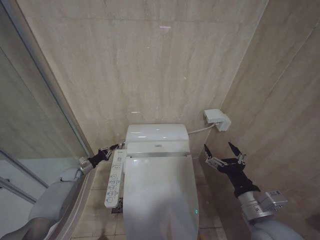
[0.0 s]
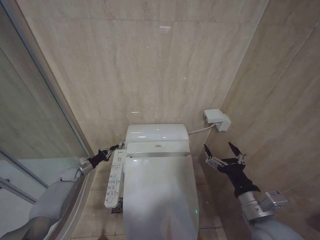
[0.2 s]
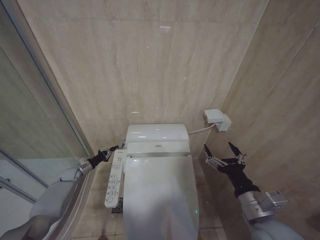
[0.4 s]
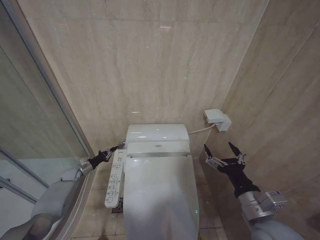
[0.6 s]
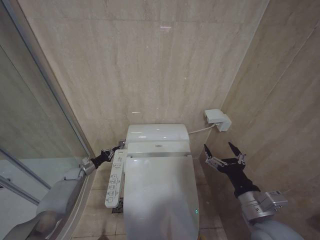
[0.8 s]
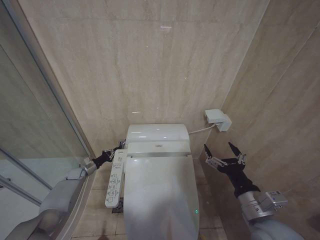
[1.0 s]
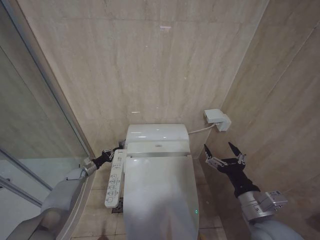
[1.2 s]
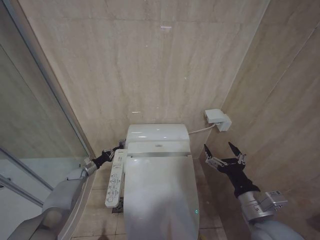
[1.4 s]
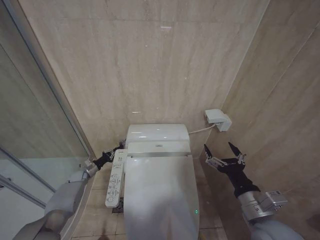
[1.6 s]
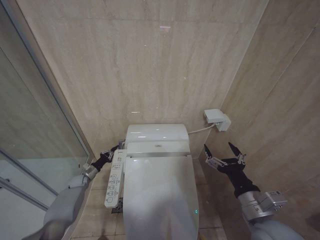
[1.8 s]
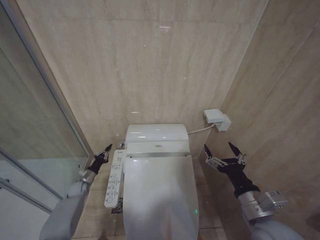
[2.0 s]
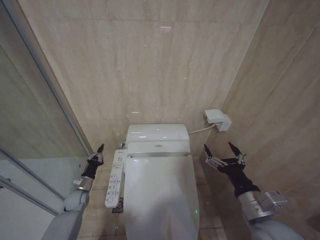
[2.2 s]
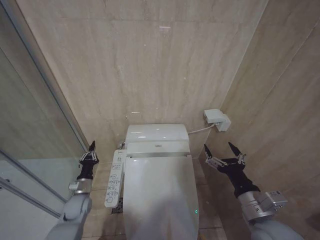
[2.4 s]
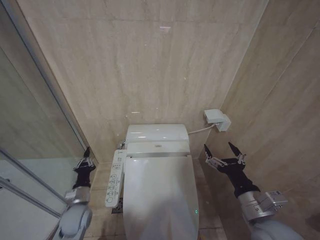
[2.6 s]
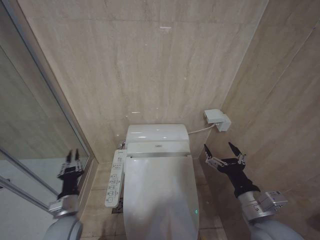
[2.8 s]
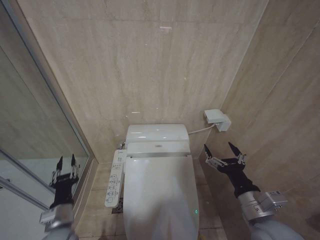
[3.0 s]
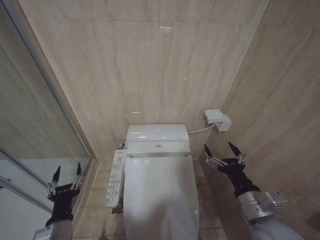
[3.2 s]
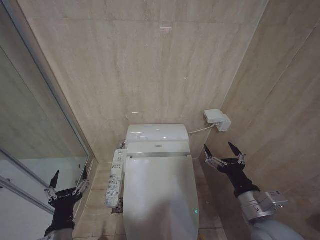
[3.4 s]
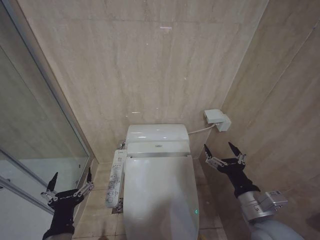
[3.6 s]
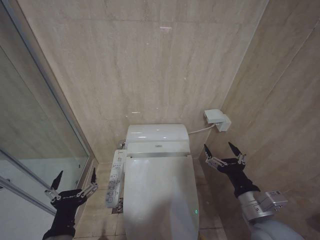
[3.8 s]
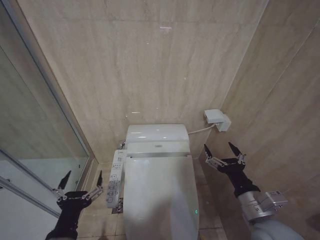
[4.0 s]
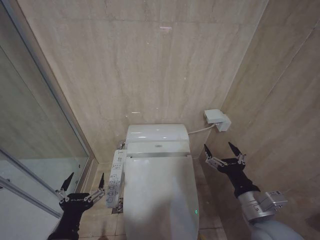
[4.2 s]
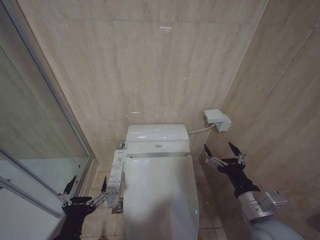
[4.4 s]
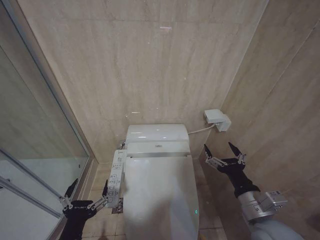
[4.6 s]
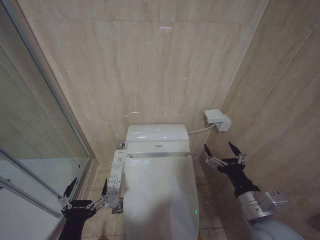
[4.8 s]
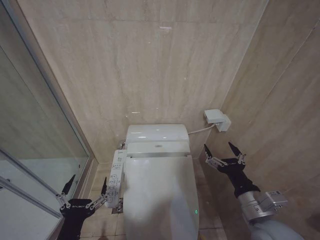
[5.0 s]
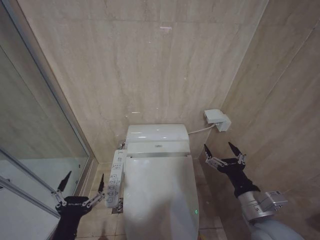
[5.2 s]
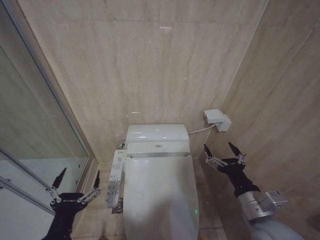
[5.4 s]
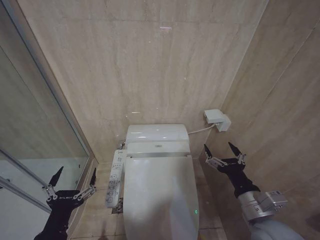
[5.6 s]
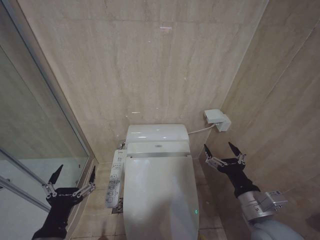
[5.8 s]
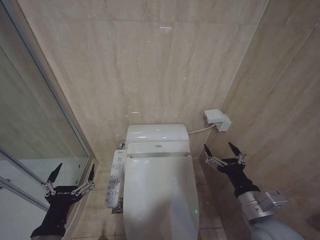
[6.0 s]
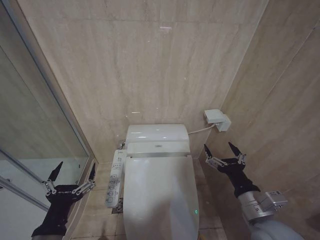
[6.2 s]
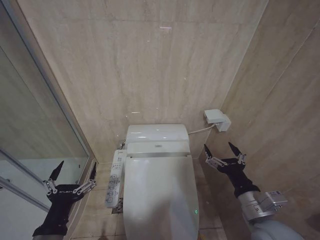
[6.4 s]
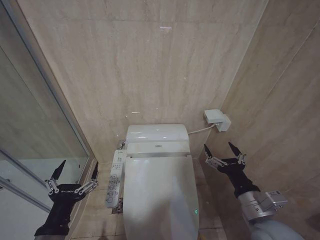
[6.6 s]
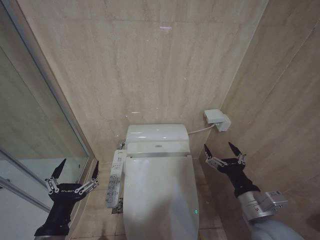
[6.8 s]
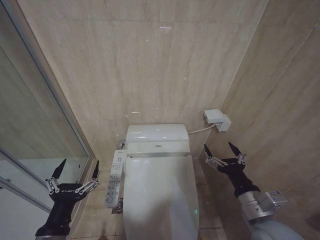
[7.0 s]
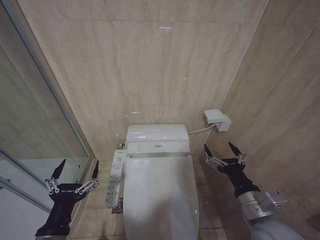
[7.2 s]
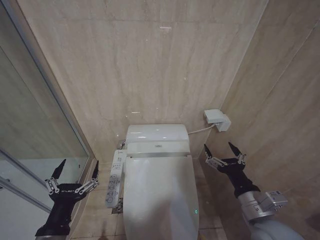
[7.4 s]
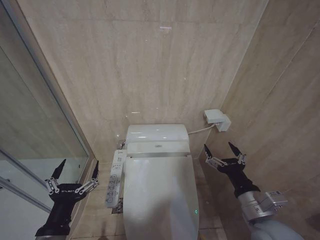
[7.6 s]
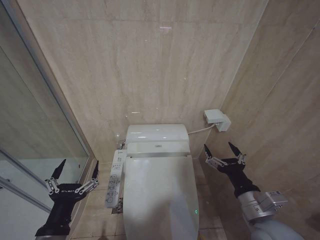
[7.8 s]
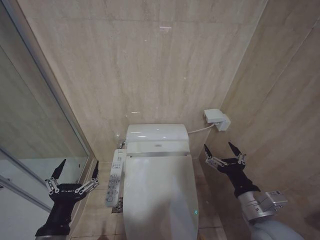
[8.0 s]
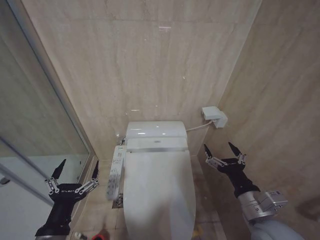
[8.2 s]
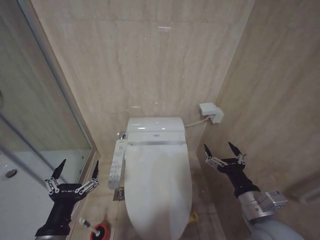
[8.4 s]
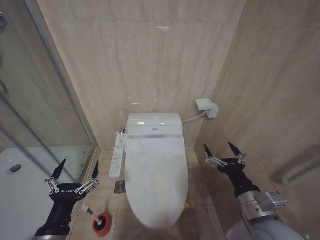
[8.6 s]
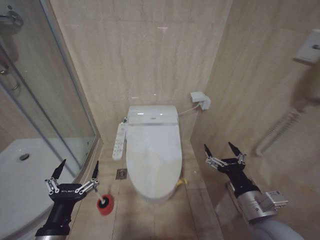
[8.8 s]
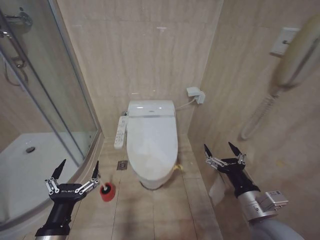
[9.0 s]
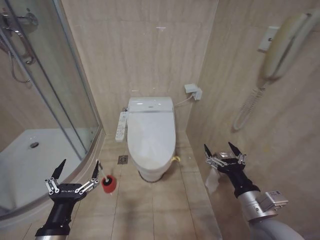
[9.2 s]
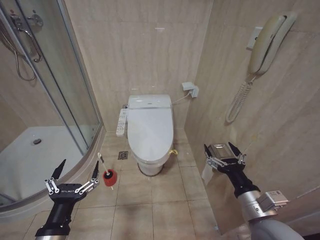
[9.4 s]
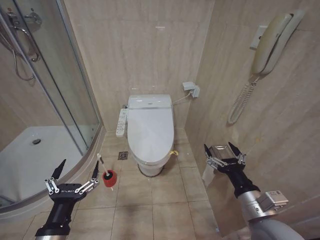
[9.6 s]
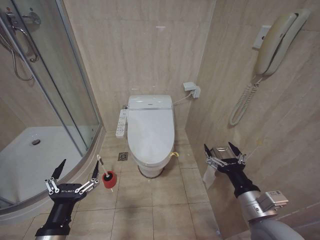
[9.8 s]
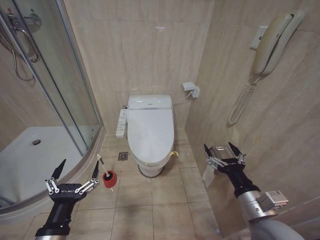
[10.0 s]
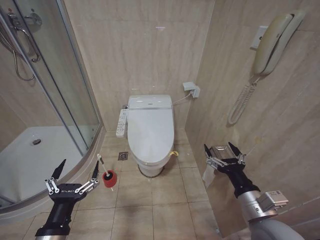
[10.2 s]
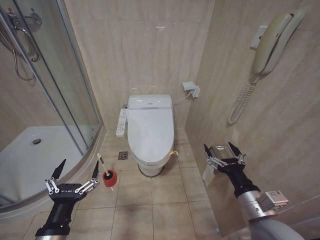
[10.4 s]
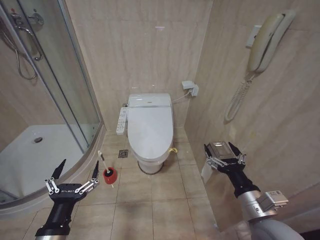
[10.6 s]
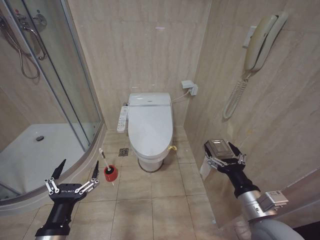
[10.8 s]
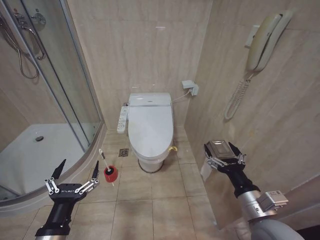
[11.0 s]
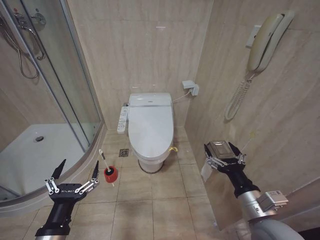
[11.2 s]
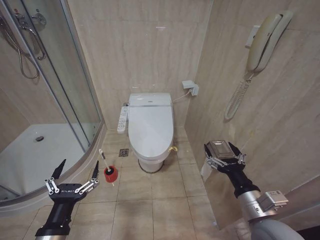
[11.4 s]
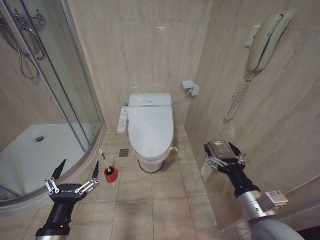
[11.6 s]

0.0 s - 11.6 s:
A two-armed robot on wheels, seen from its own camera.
Task of the whole recording: Open the toilet lid, clean the toilet bowl with a toilet brush, close the toilet lid, and flush.
0.0 s - 1.4 s: The grippers make only small movements.
1.4 s - 2.8 s: The left gripper moves backward and to the right, approximately 30 cm.
2.8 s - 4.4 s: The left gripper is displaced backward, upward and to the right by roughly 20 cm, and opens its fingers.
4.4 s - 7.2 s: There are only small adjustments of the grippers.
10.2 s - 11.6 s: Both grippers stay about where they are.

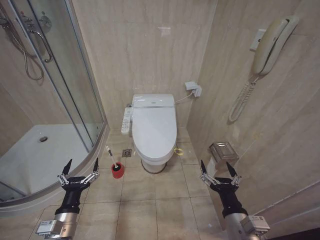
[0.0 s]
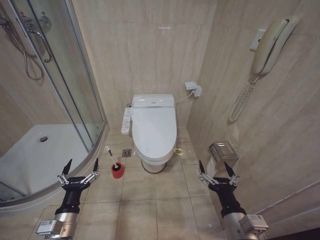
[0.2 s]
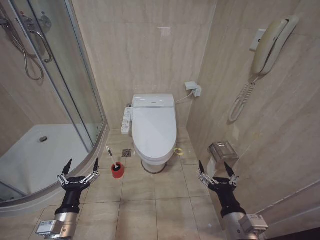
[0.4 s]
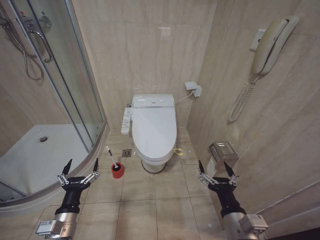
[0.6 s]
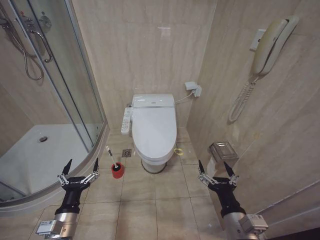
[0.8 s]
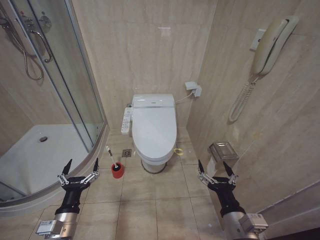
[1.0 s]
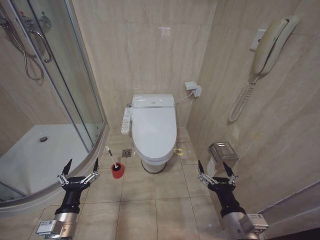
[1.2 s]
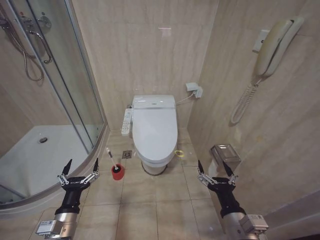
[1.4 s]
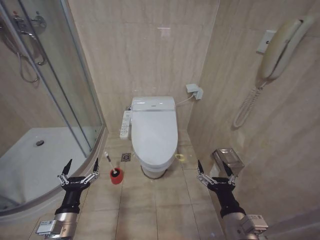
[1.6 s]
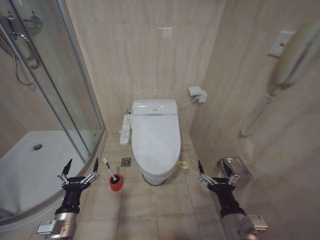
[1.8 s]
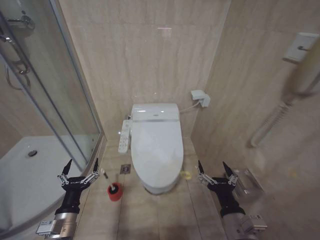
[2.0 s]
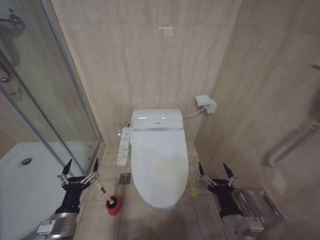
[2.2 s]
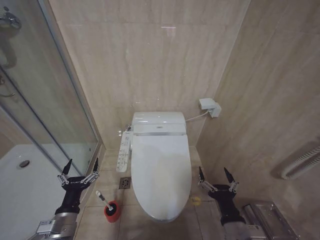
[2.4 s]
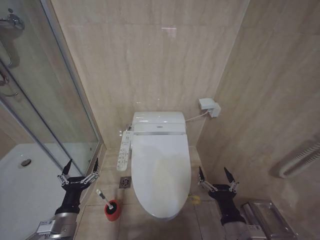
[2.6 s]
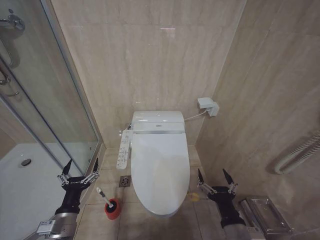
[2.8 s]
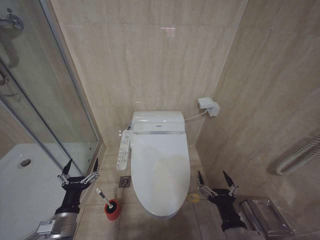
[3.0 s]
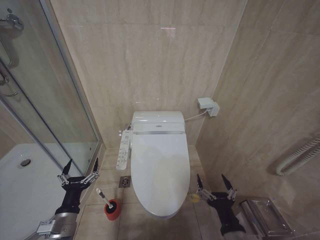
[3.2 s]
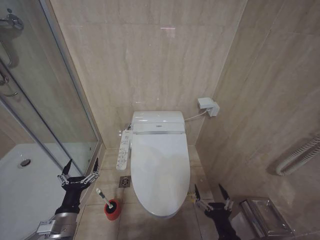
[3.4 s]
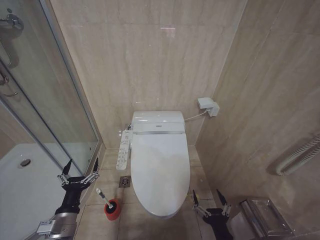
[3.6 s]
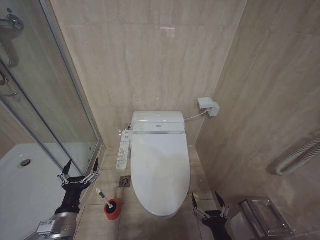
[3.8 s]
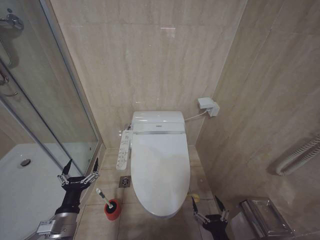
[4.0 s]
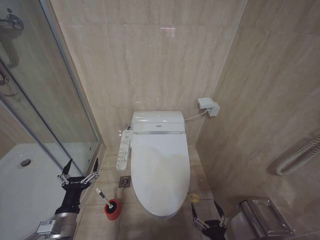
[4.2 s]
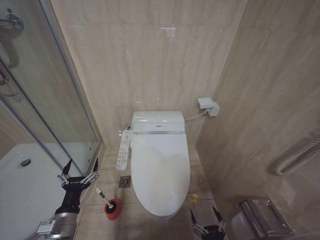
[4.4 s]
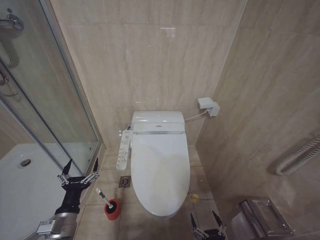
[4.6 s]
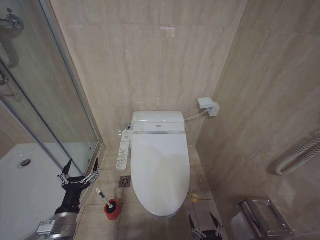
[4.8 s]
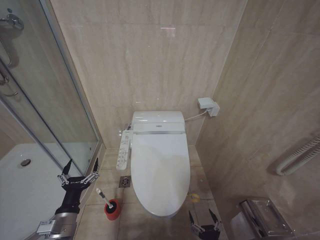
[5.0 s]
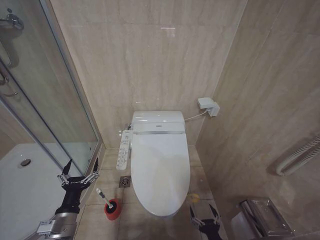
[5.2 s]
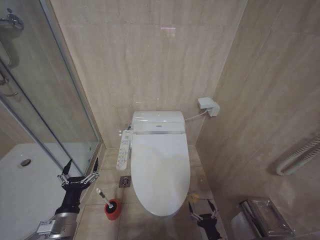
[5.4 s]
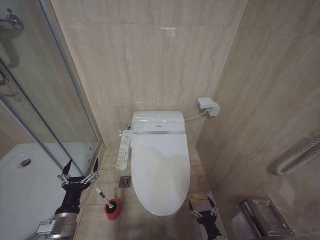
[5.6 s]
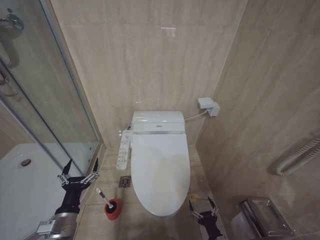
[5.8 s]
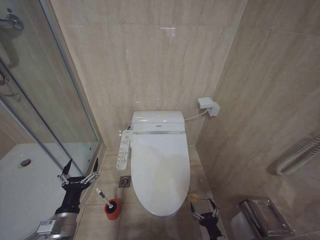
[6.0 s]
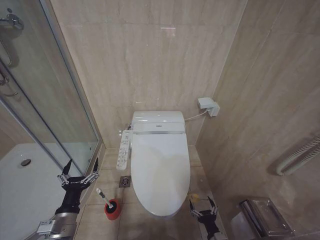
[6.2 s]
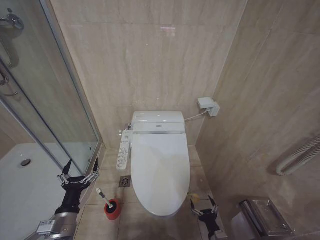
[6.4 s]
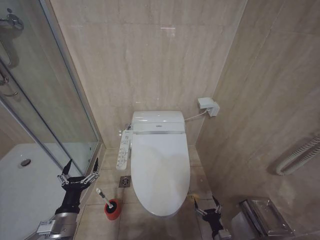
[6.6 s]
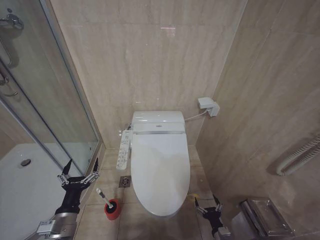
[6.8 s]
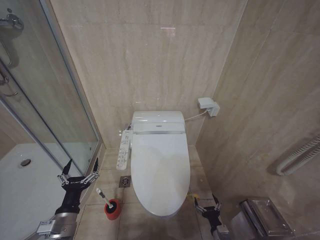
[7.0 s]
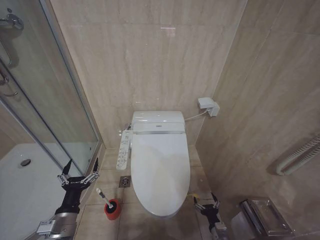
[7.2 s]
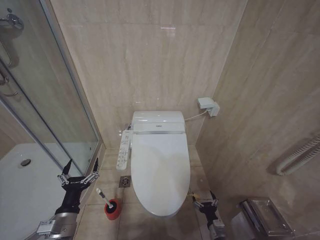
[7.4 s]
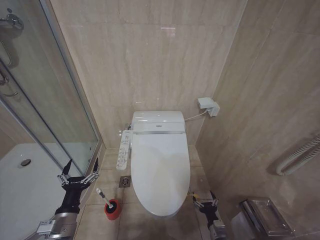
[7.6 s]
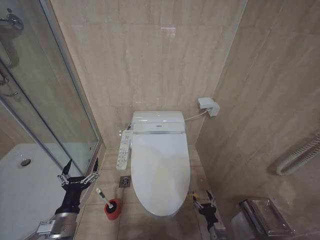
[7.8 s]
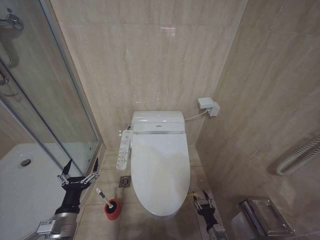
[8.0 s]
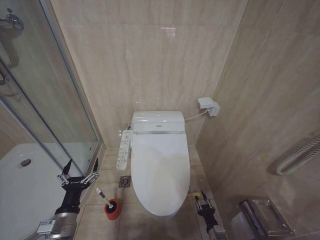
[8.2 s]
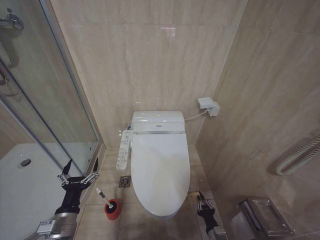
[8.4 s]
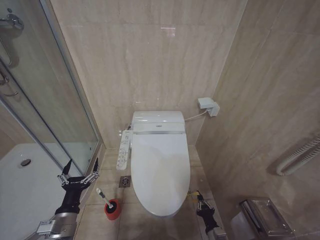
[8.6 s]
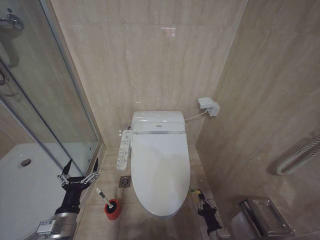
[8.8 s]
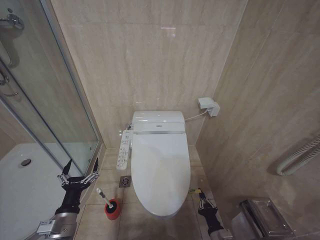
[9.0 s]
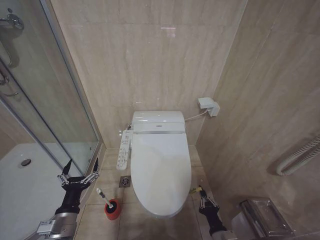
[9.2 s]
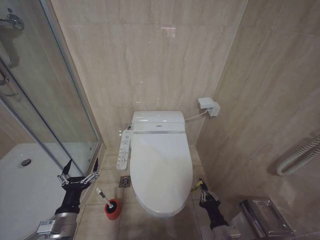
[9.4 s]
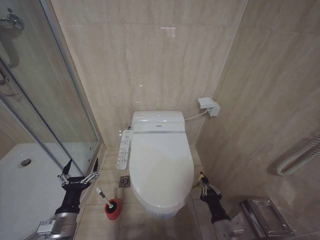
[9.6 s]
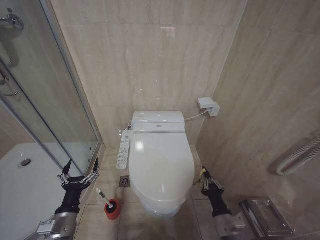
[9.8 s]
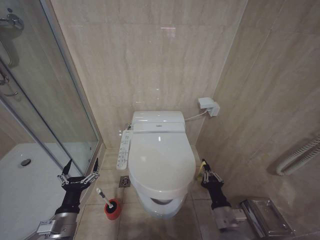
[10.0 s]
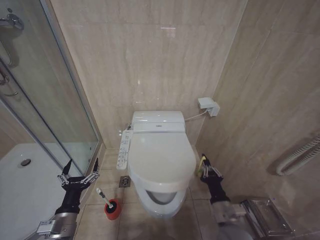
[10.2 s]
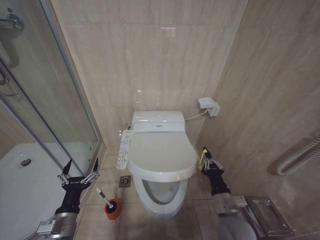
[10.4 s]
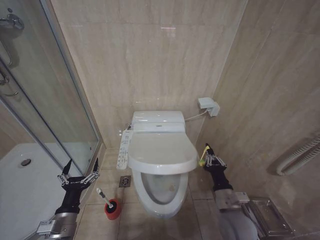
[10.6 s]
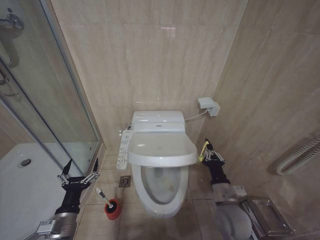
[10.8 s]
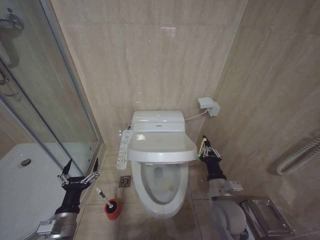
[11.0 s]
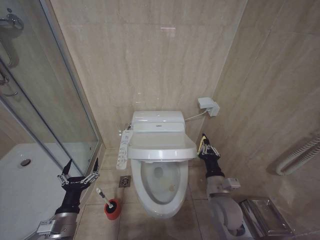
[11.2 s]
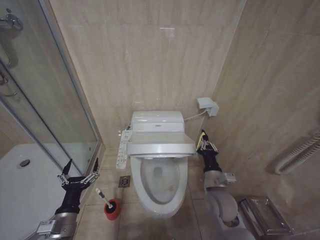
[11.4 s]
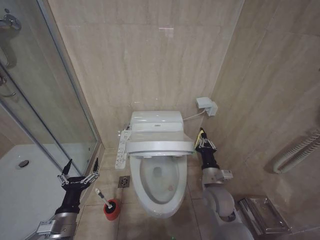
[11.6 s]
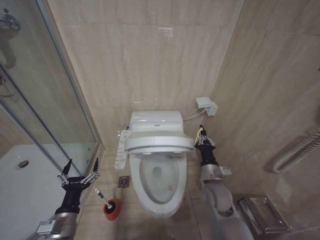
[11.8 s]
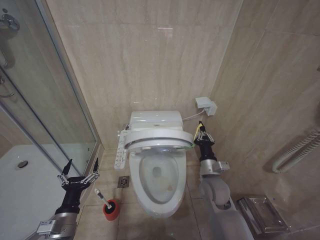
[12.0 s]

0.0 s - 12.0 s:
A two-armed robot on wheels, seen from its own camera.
Task of the whole recording: Open the toilet lid, clean the toilet bowl with a toilet brush, close the toilet lid, and flush.
3.0 s - 4.4 s: The right gripper is displaced downward and backward by approximately 15 cm.
9.0 s - 10.4 s: The right gripper travels upward by about 15 cm.
10.4 s - 12.0 s: The right gripper travels forward by roughly 10 cm.
